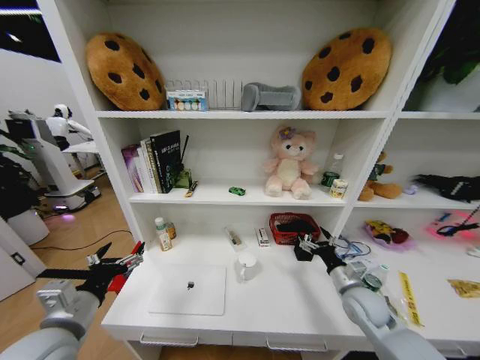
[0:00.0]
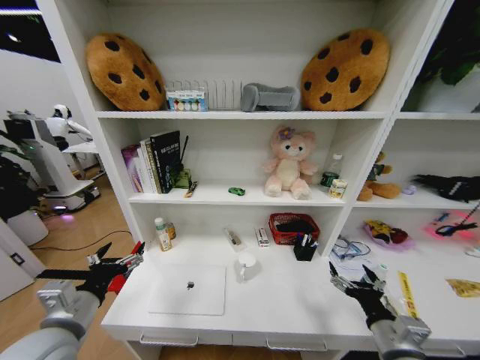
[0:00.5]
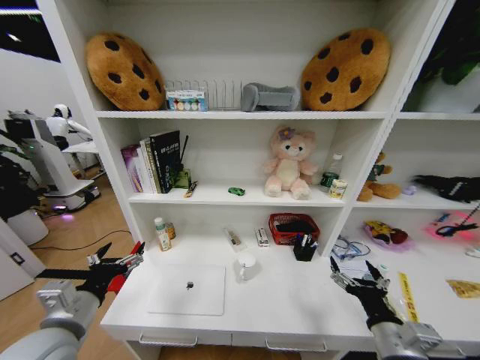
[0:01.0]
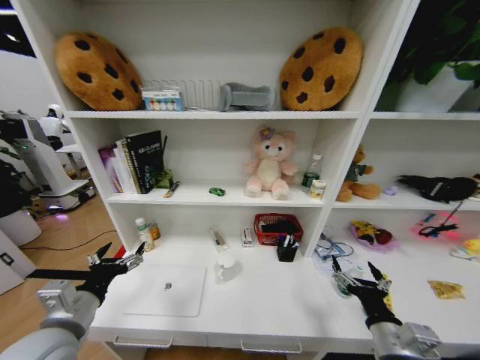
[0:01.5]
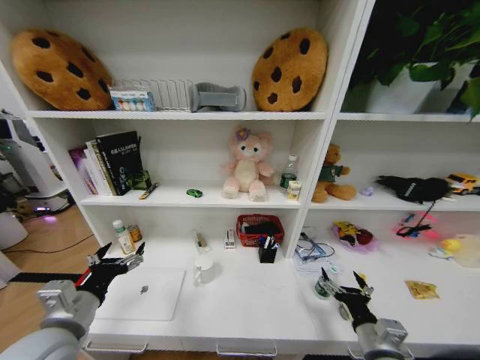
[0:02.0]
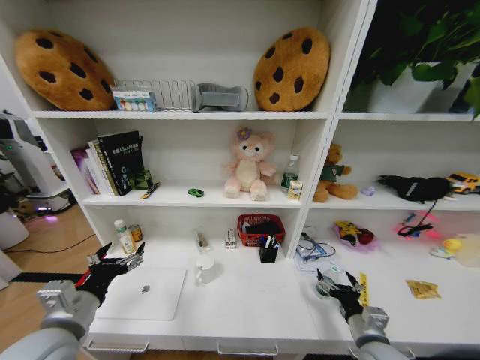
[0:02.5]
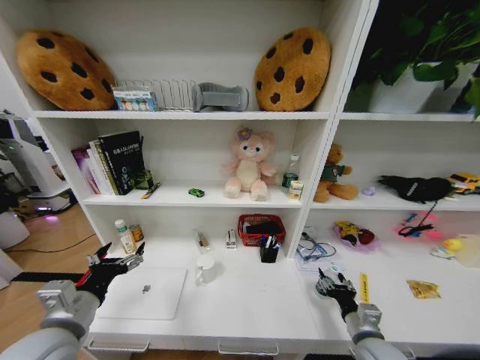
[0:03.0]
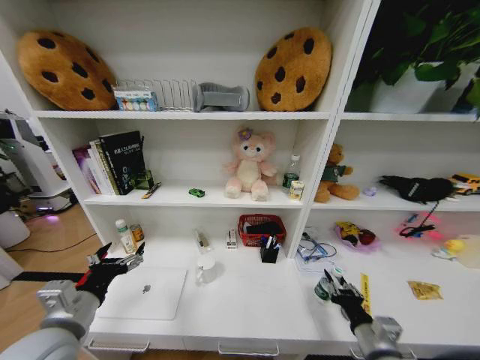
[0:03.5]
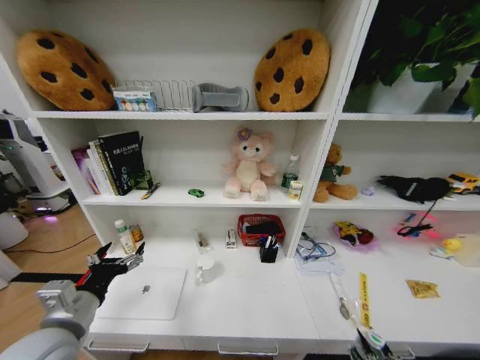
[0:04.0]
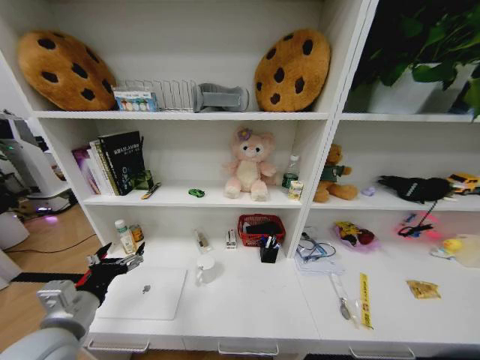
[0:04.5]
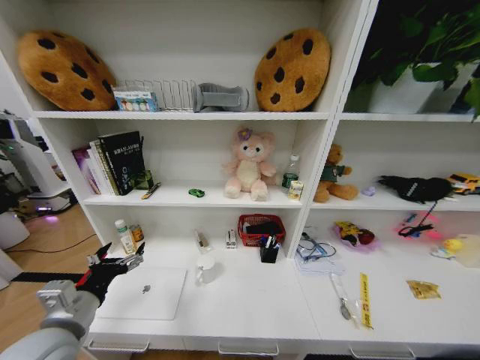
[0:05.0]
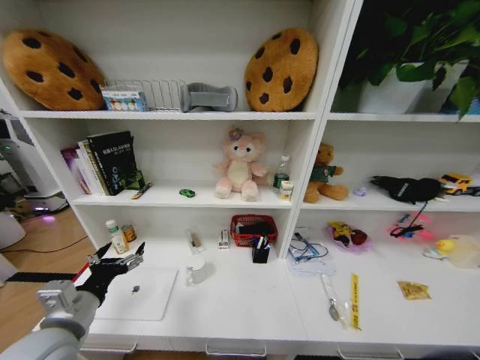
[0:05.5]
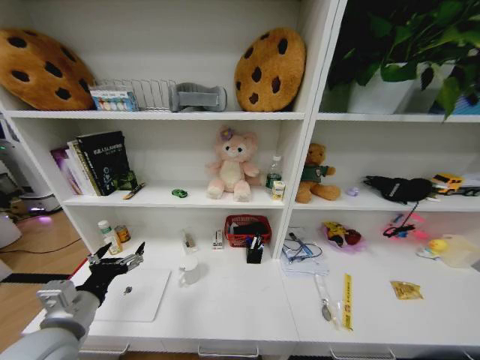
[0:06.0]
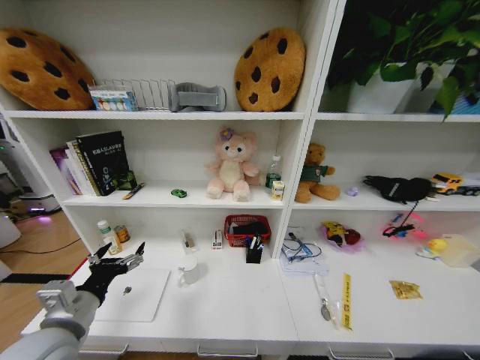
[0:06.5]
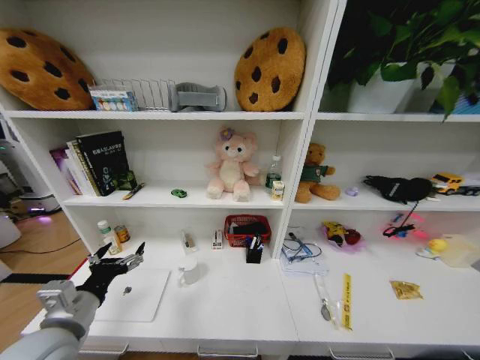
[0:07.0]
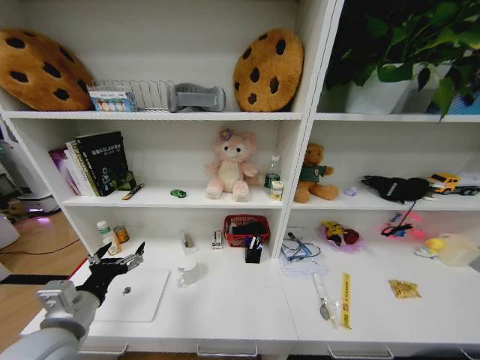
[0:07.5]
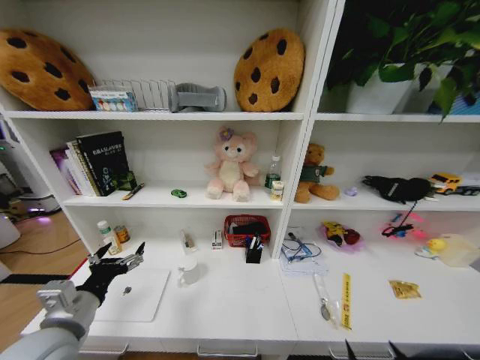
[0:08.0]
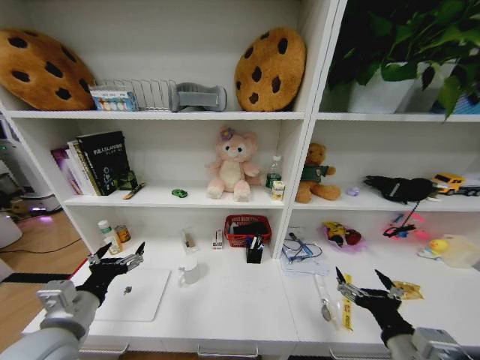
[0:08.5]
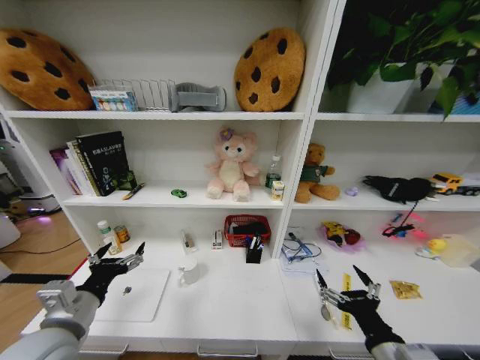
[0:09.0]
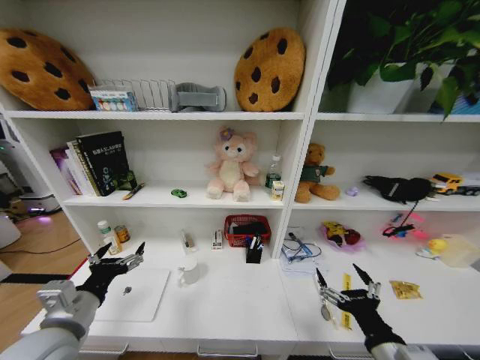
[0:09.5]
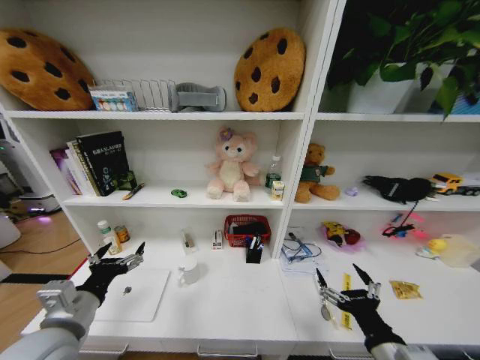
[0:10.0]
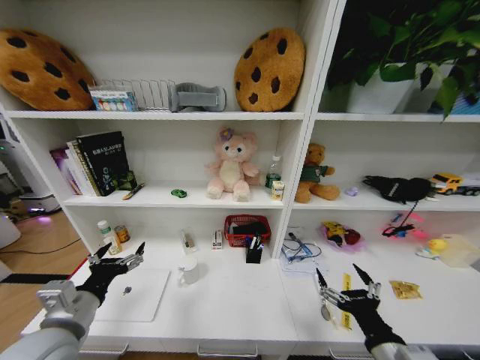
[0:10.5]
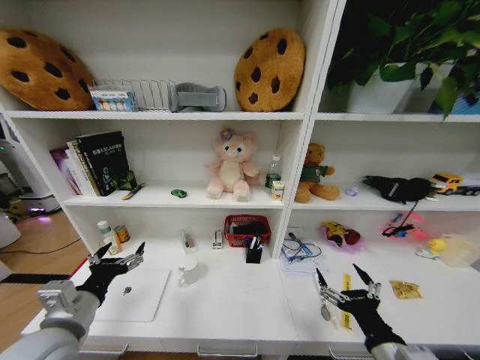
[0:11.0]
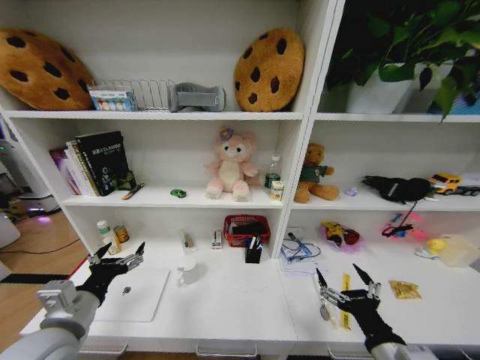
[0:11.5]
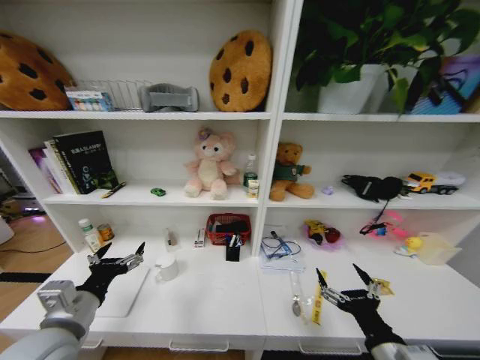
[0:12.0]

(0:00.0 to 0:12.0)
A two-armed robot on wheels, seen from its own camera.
Task of the whole recording: Organize the objects on the table.
0:00.0 - 0:02.0: The right gripper shifts approximately 20 cm backward.
0:02.0 - 0:04.0: The right gripper goes approximately 20 cm backward, and closes.
0:04.0 - 0:06.0: The right gripper is displaced downward by about 35 cm.
0:06.0 - 0:08.0: The right gripper shifts roughly 35 cm upward, and opens up.
0:08.0 - 0:10.0: The right gripper goes roughly 15 cm forward and upward.

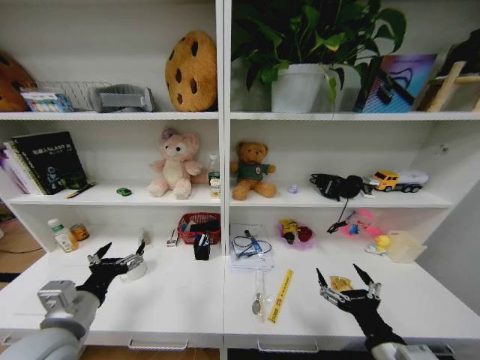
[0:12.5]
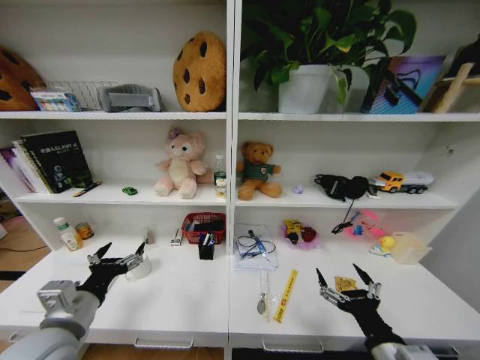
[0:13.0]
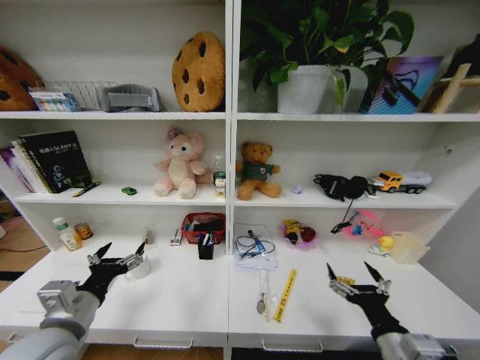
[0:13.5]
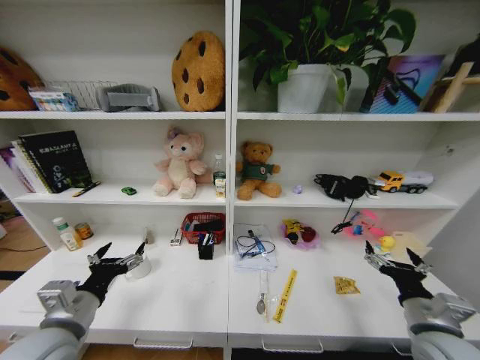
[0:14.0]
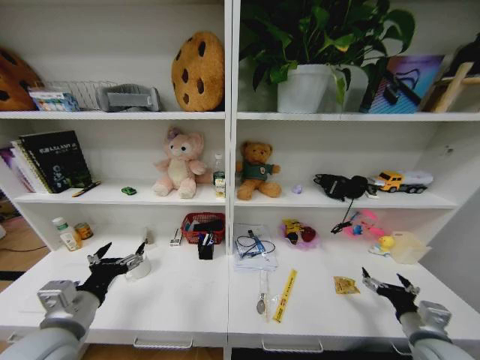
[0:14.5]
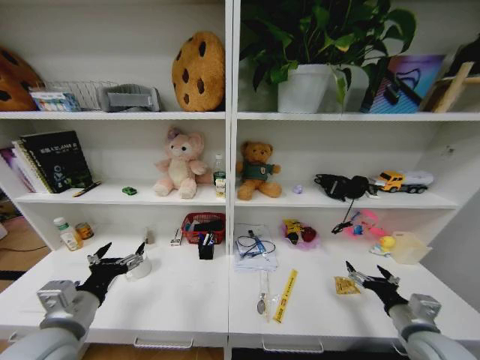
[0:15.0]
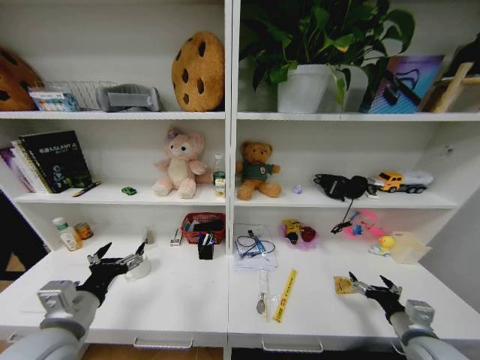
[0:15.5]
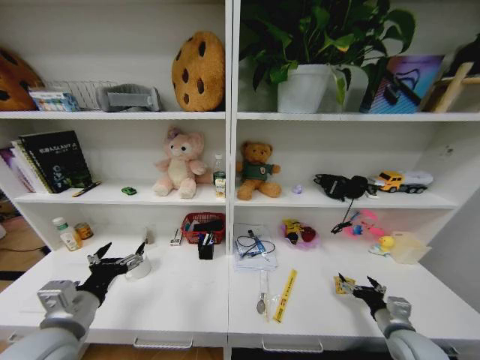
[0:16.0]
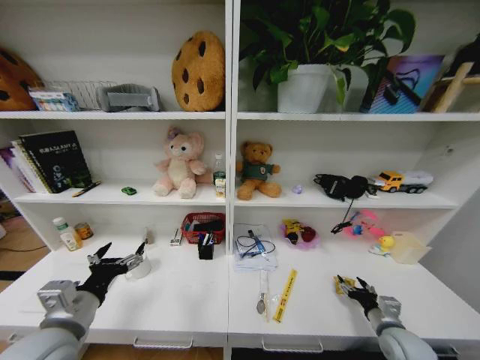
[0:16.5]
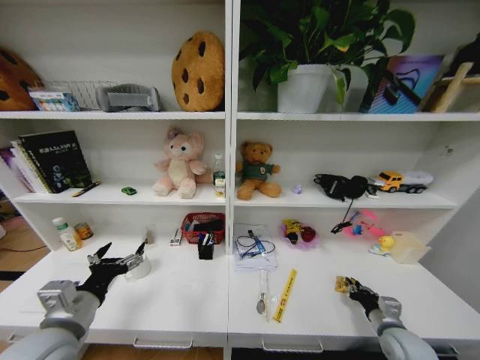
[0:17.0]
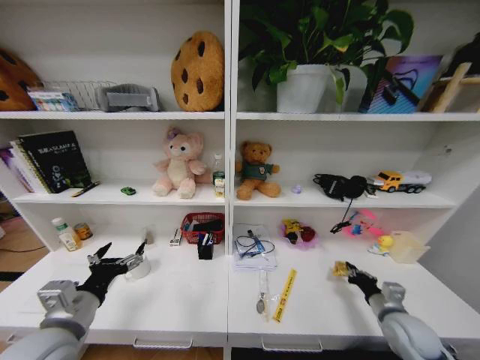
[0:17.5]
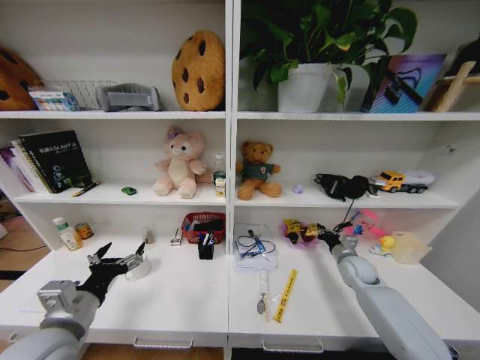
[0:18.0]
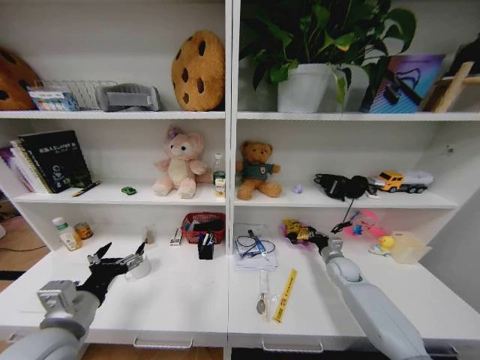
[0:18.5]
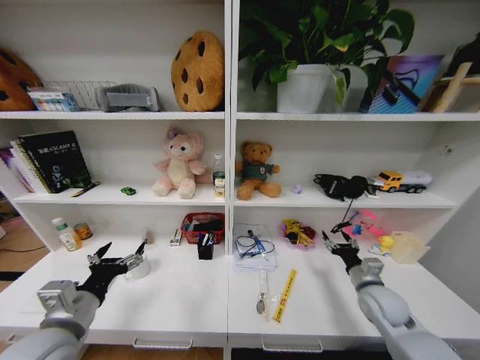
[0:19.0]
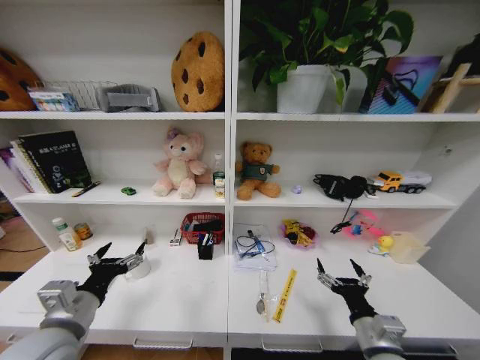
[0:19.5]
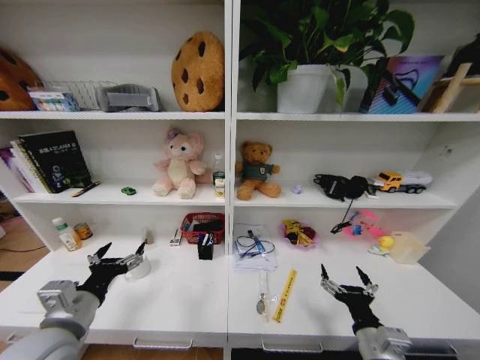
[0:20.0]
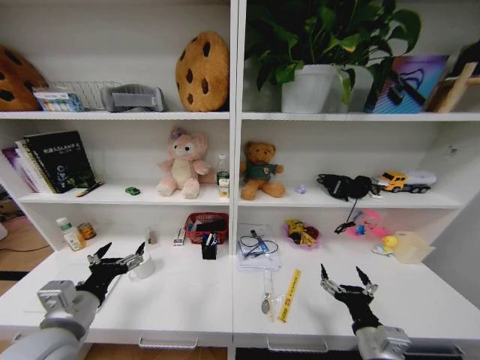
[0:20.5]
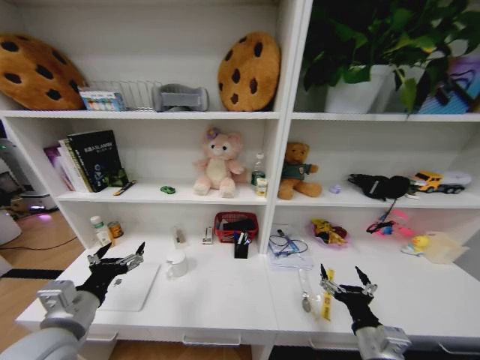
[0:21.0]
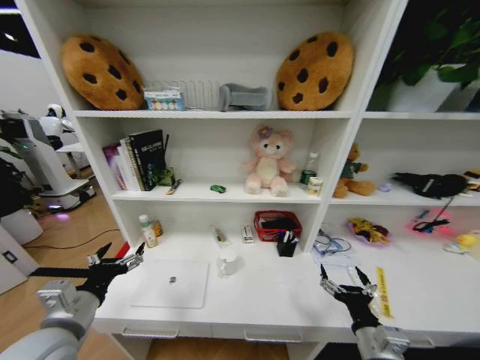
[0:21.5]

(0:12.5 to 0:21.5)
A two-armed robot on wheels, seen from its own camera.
Task of the whole recording: Organize the objects on the table.
0:12.5 - 0:14.5: The right gripper shifts about 15 cm to the right and forward.
0:14.5 - 0:17.0: The right gripper travels downward by roughly 10 cm, and closes up.
0:17.0 - 0:19.5: The right gripper travels to the left and upward by about 15 cm, travels forward and back again, roughly 20 cm each way, and opens its fingers.

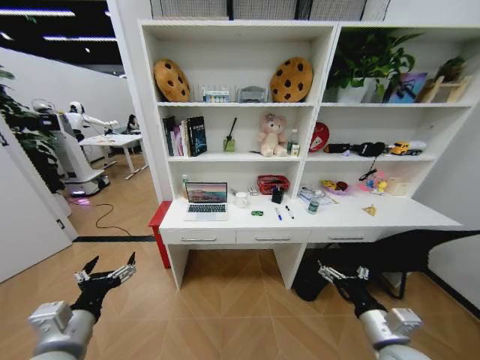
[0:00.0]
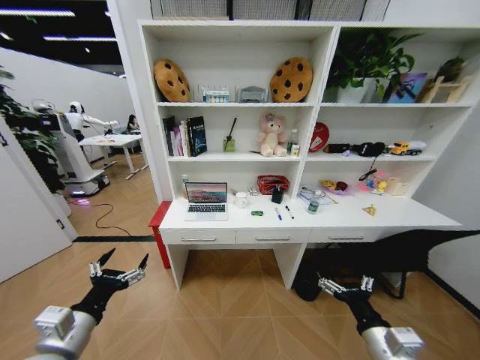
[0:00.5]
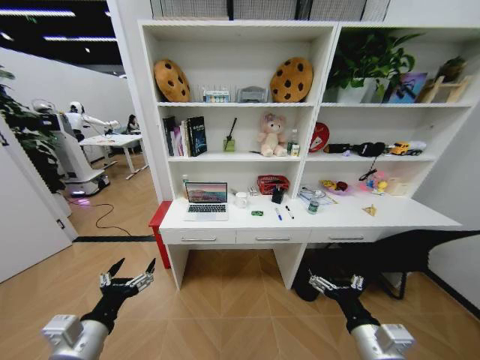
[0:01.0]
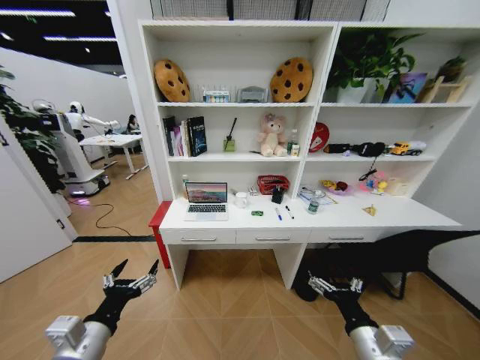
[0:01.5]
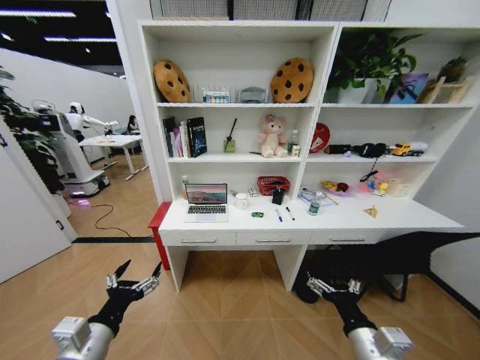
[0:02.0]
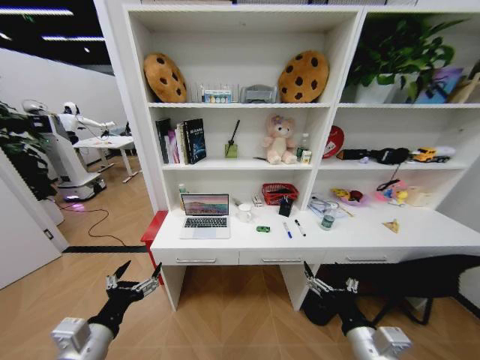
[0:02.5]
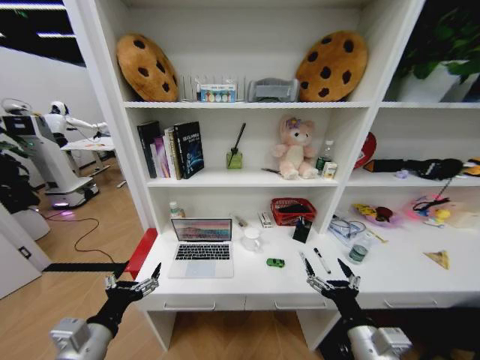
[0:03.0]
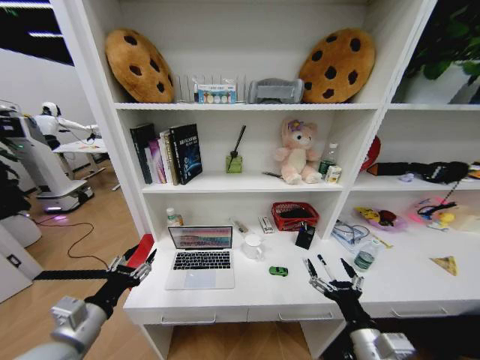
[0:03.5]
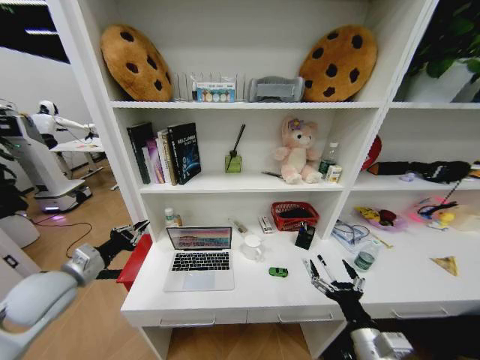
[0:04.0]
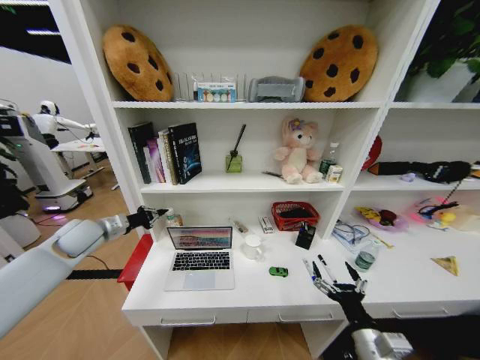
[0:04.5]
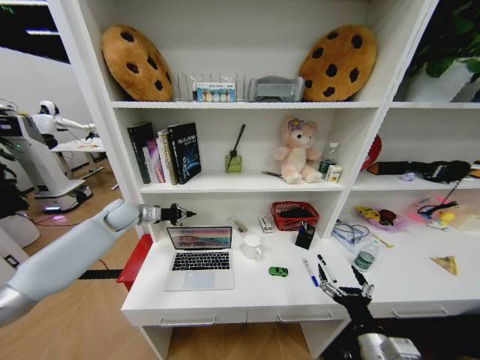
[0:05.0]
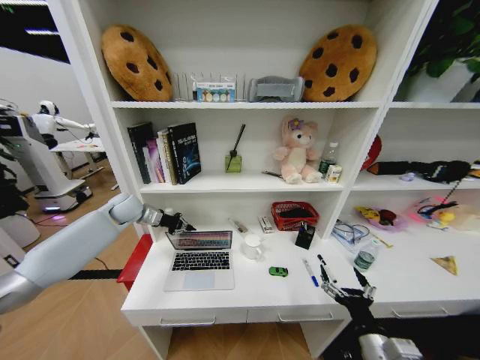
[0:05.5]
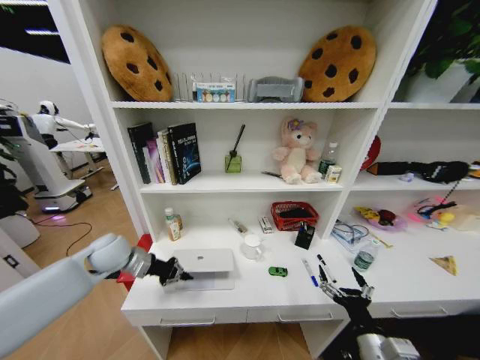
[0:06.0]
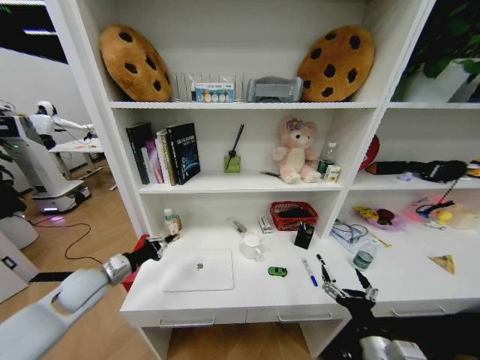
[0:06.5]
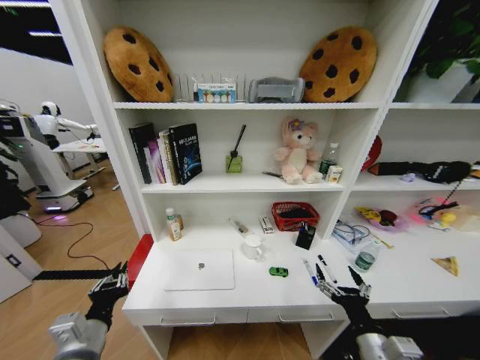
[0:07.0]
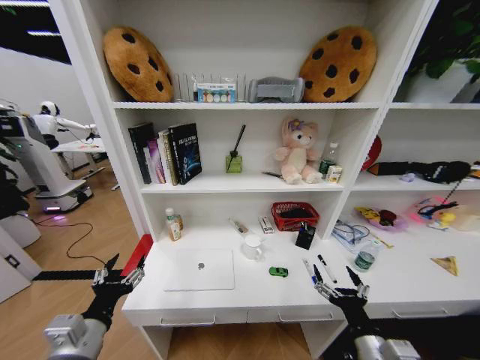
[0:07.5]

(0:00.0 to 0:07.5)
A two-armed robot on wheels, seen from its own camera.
Task of the whole recording: Organize the objects on the table.
0:02.0 - 0:04.0: The left gripper is displaced forward and to the left by approximately 20 cm, and closes up.
0:04.0 - 0:05.5: The left gripper shifts roughly 25 cm forward.
0:05.5 - 0:07.5: The left gripper moves backward, some 40 cm, and opens up.
